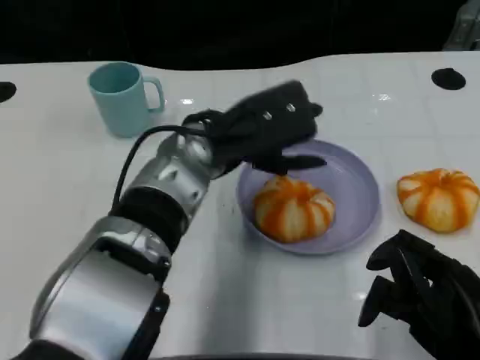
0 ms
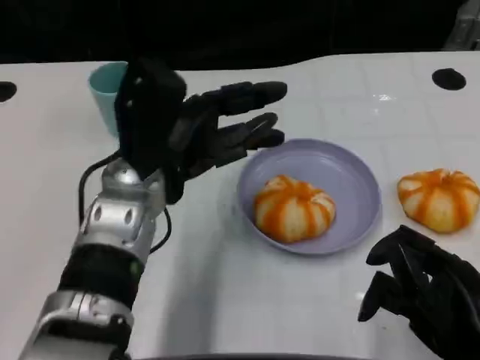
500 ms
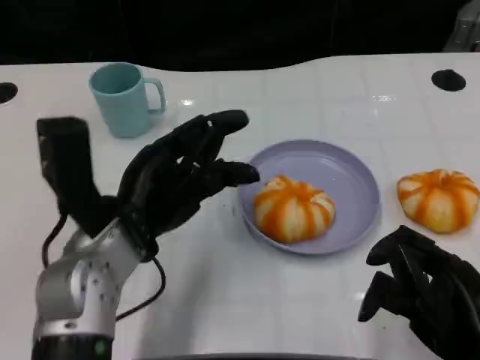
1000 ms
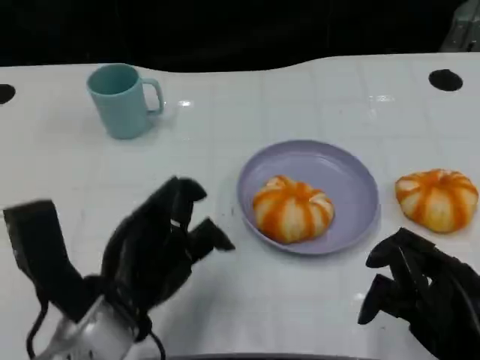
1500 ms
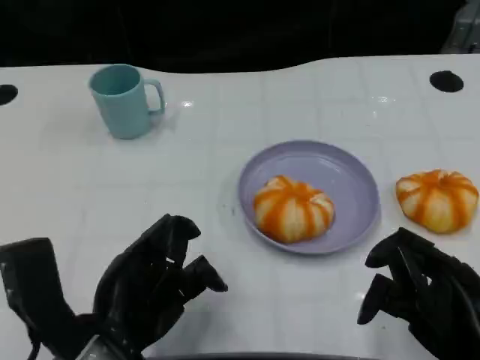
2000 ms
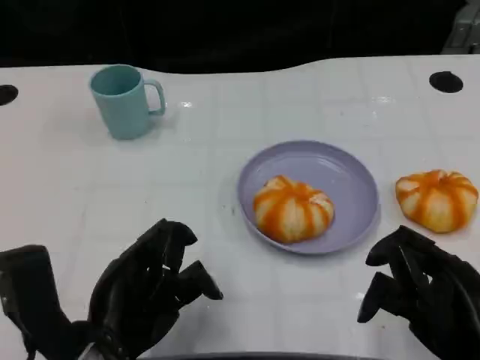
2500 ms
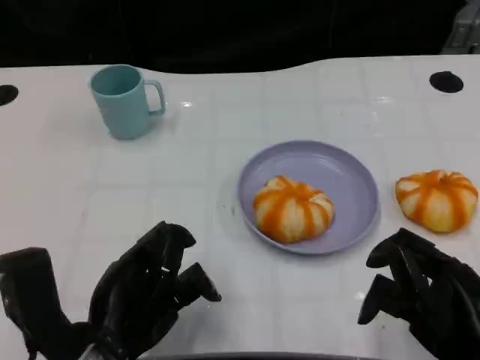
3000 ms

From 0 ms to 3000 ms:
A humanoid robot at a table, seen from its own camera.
Task of the whole recording: Grasp the bread from the table and place it into the plate.
From 0 ms to 1500 ms: The left hand travels backward, to the left and downward by approximately 20 cm.
From 1500 ms to 3000 ms: The hands make only small movements.
